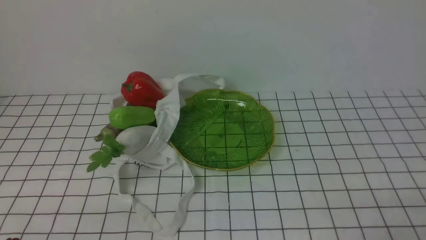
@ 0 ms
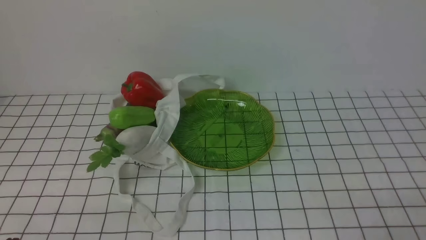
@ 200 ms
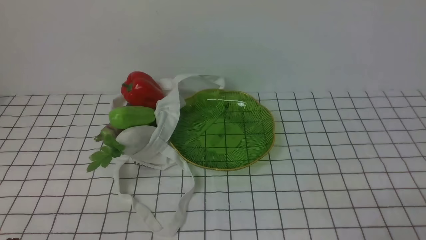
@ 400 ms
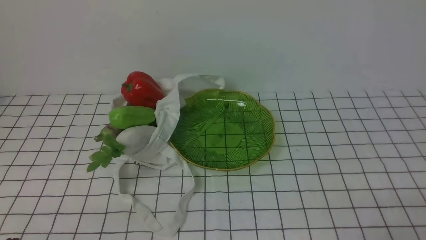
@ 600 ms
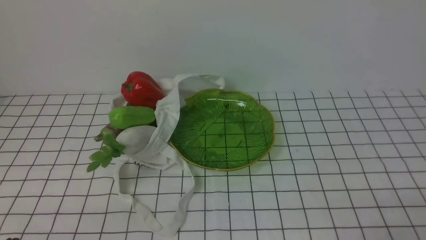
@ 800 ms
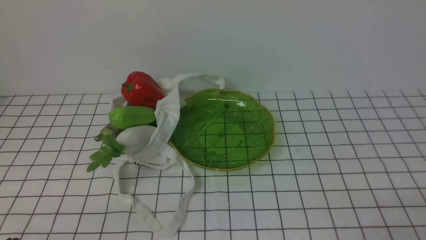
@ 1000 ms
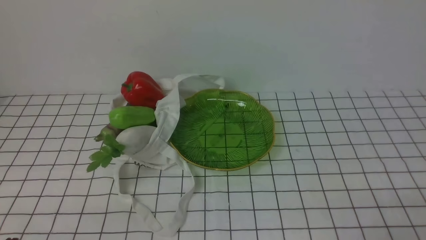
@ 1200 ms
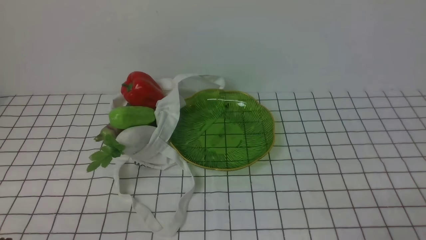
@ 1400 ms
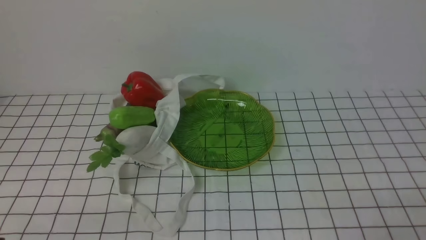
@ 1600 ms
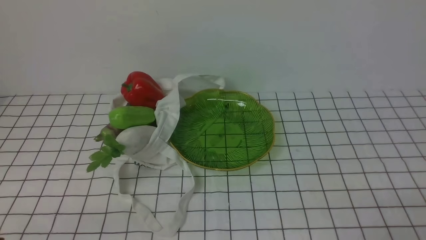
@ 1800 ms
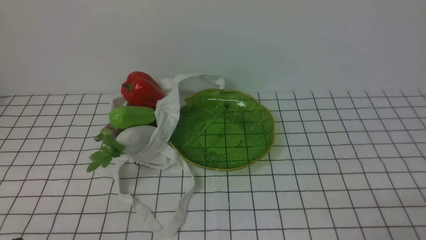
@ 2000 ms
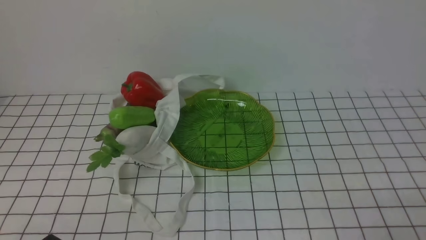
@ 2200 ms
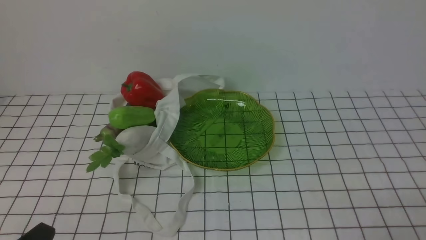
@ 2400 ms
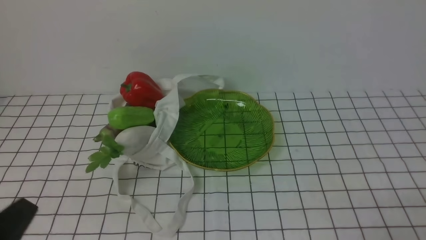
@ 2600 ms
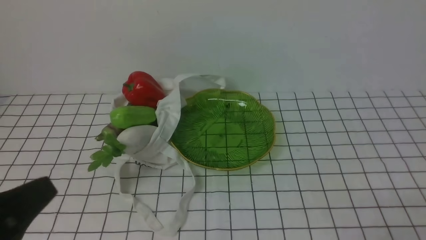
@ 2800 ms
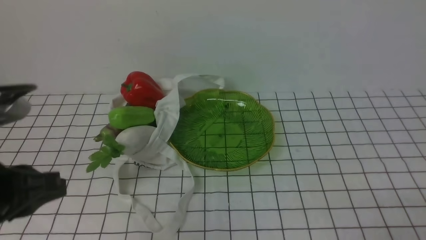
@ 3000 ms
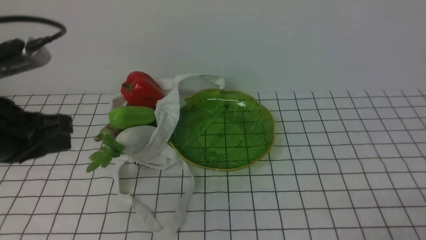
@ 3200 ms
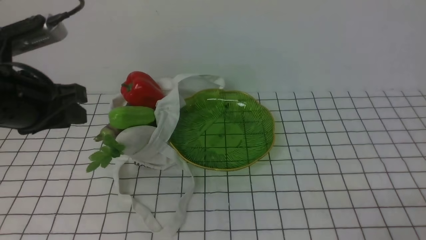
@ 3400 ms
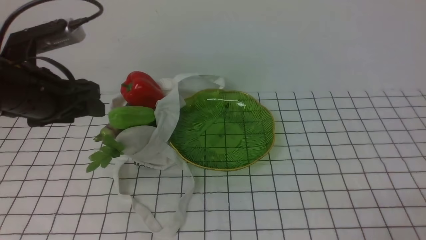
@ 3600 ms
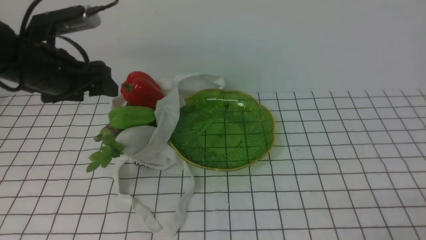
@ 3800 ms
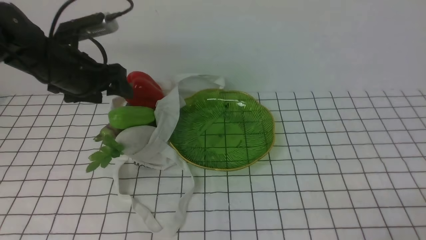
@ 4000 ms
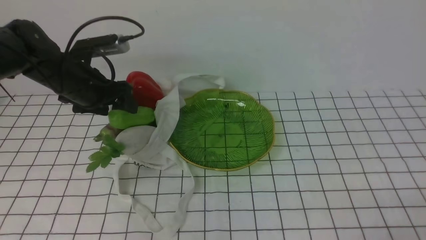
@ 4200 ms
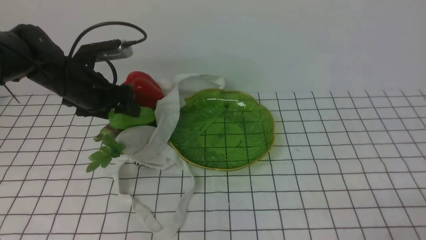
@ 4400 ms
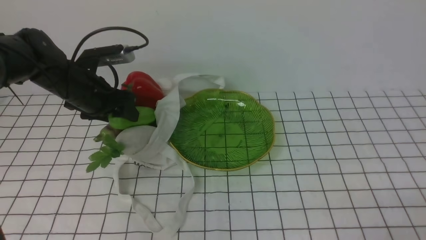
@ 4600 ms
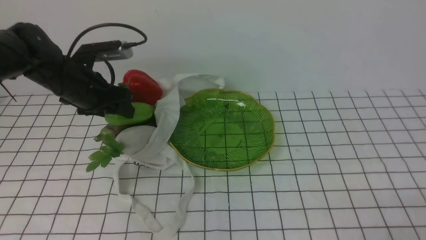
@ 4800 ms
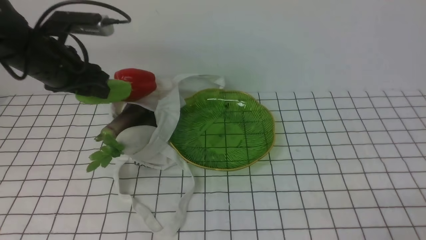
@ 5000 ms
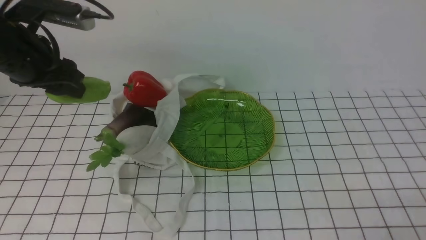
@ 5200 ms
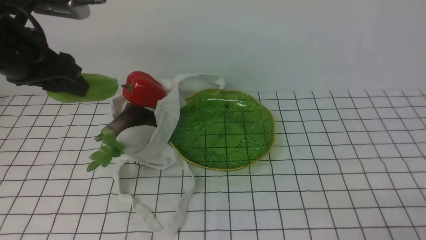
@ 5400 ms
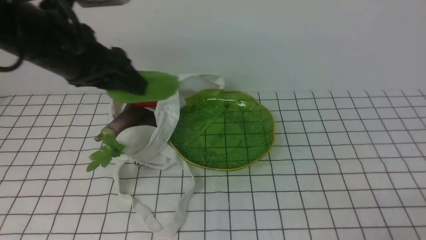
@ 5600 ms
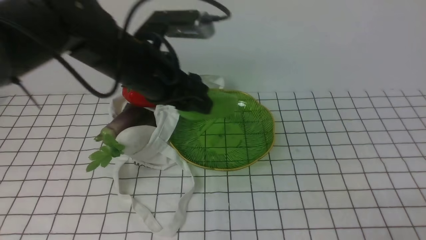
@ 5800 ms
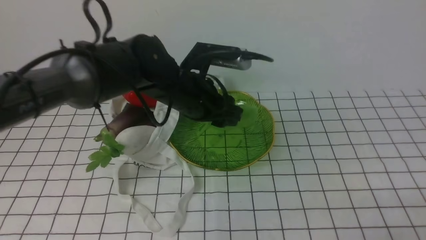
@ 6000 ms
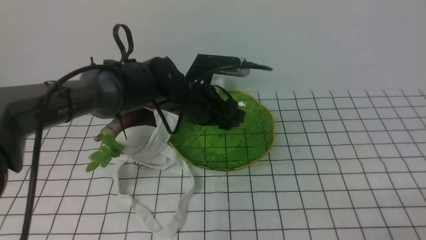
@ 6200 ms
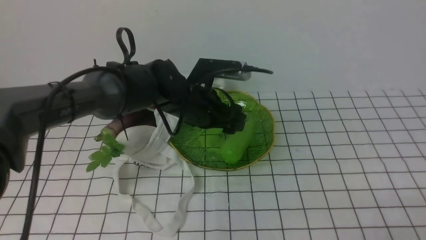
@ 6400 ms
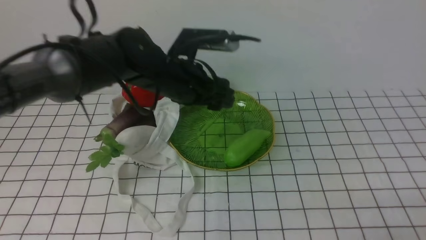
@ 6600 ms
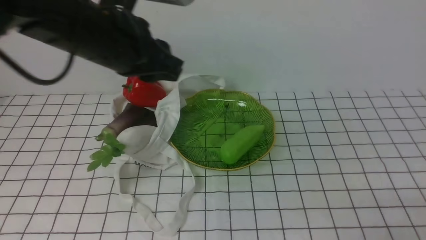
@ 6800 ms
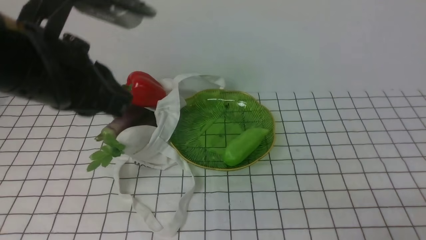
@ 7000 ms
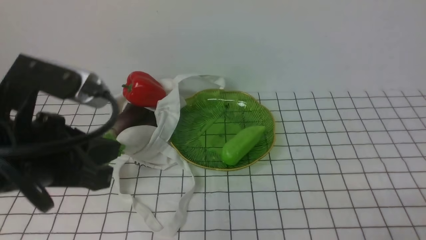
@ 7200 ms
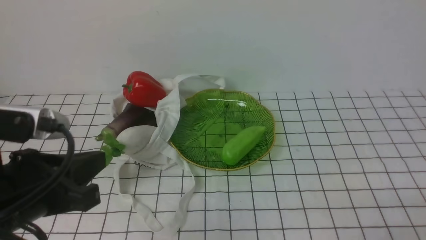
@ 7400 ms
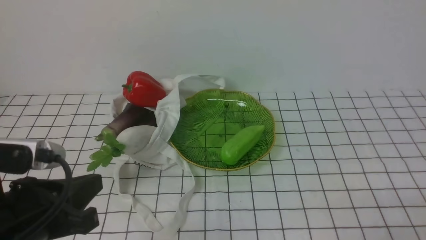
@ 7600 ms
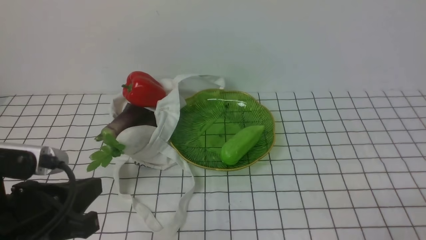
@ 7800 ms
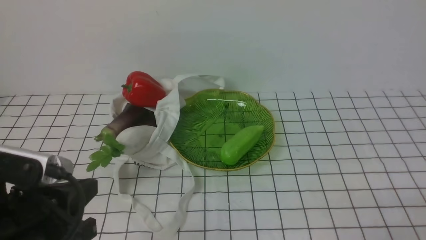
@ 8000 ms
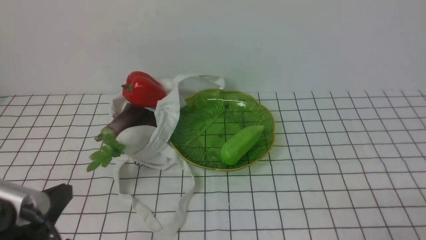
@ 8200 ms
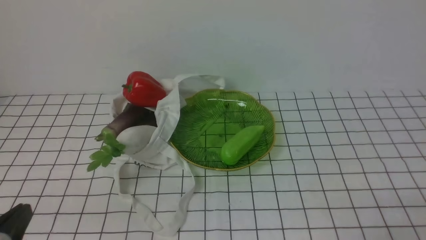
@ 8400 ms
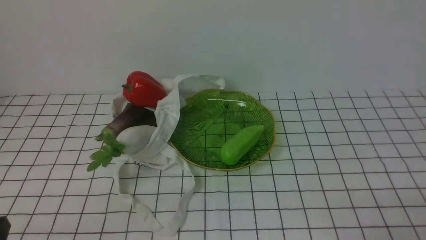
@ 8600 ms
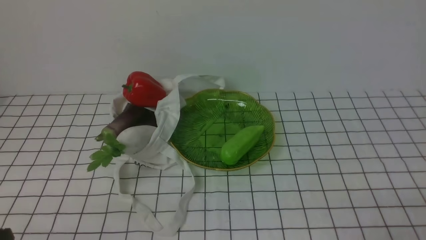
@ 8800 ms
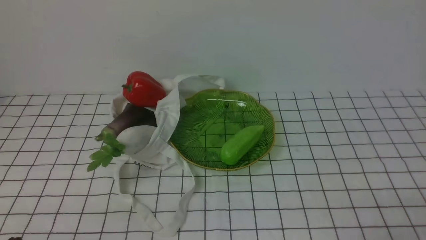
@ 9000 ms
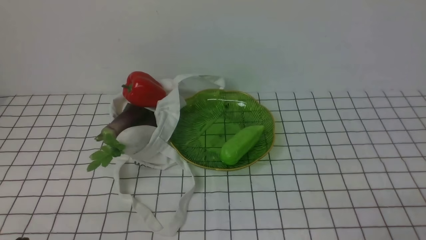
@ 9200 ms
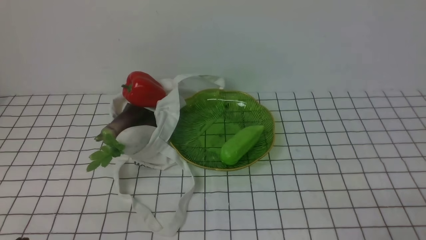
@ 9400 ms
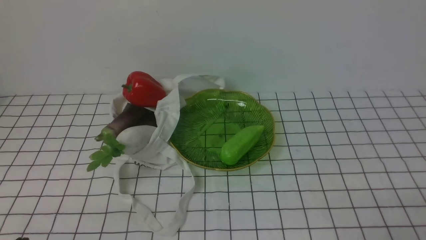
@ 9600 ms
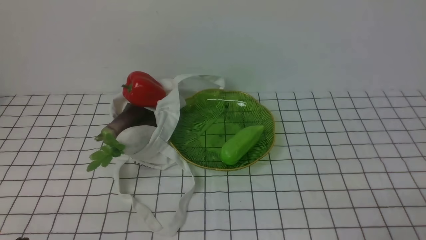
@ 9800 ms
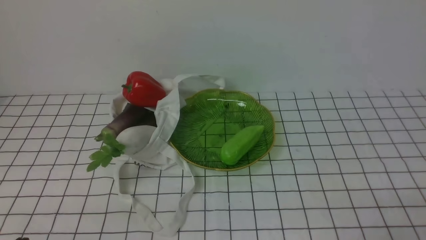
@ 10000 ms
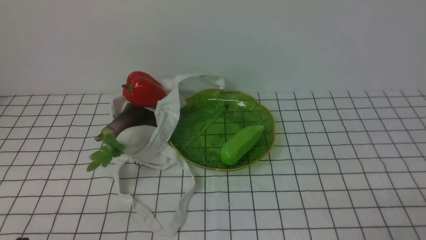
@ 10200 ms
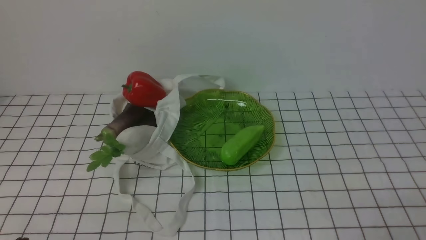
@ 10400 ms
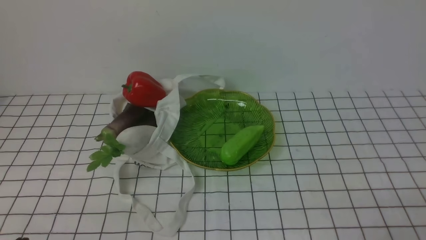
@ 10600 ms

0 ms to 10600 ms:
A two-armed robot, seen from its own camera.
Task of the whole recording: take vegetables from bag on white checkered tablecloth place on plate.
Step, 0 ms to 4600 ms: Grasp the bitter melon with left gripper.
Step, 4800 ms to 6400 ms: Place the bitter melon on the plate with left gripper.
1600 ms to 3000 ms: The left gripper moves upward and forward, roughly 20 cm.
3000 ms to 4600 ms: The left gripper moves forward, roughly 25 cm, and opens.
4600 ms to 6000 ms: The left gripper moves to the right, roughly 15 cm.
6000 ms to 7600 ms: The left gripper goes roughly 30 cm backward and to the left, and closes up.
7600 ms to 9000 ms: The left gripper goes some 15 cm downward, backward and to the left.
9000 ms to 10600 ms: Both grippers stay put.
